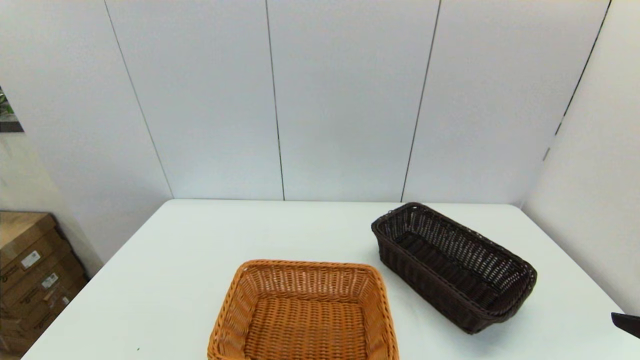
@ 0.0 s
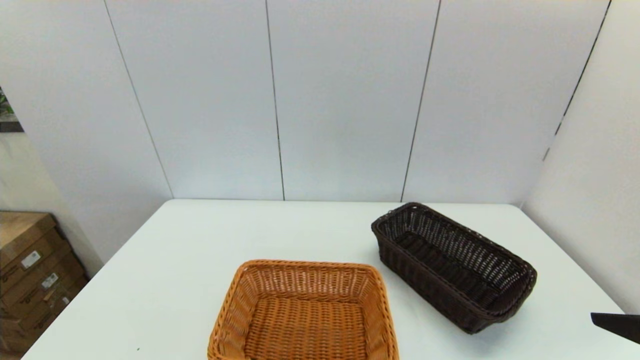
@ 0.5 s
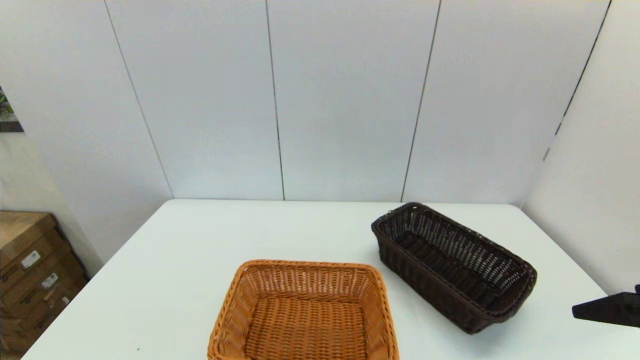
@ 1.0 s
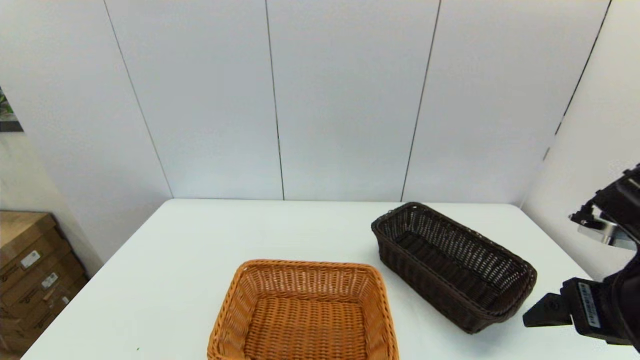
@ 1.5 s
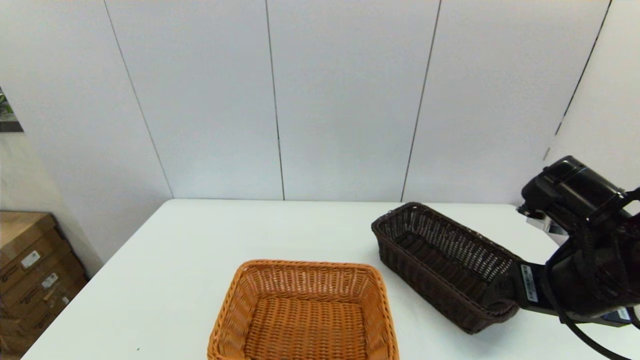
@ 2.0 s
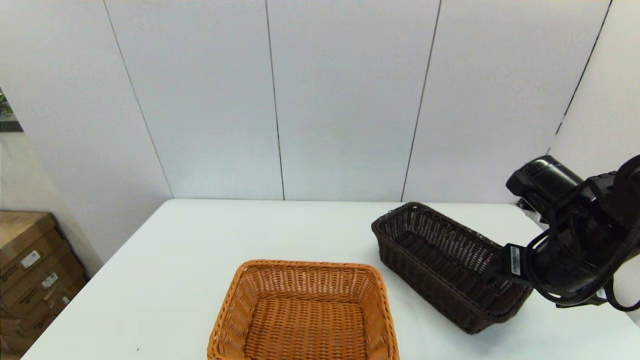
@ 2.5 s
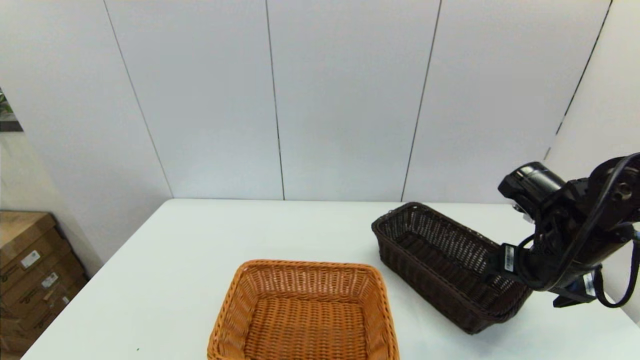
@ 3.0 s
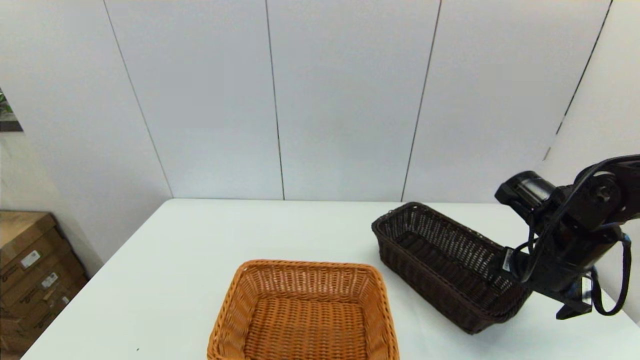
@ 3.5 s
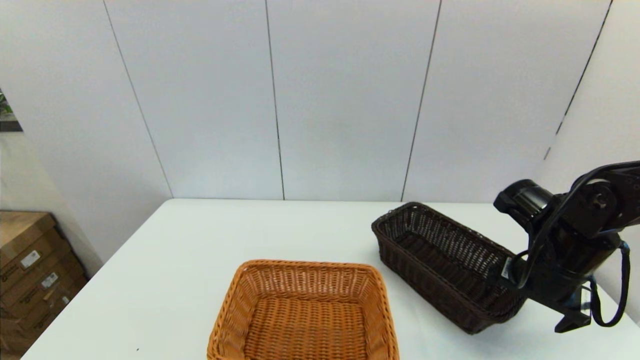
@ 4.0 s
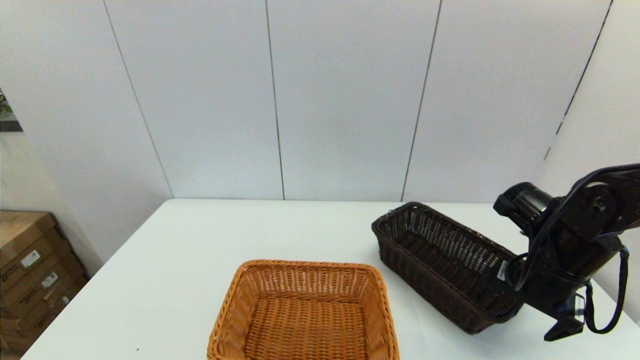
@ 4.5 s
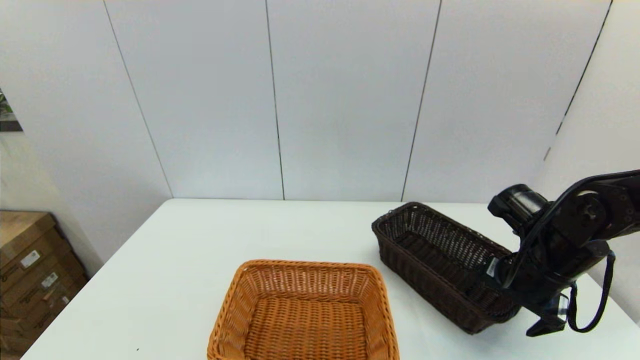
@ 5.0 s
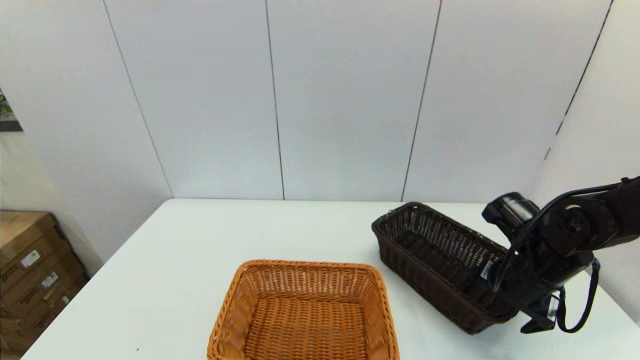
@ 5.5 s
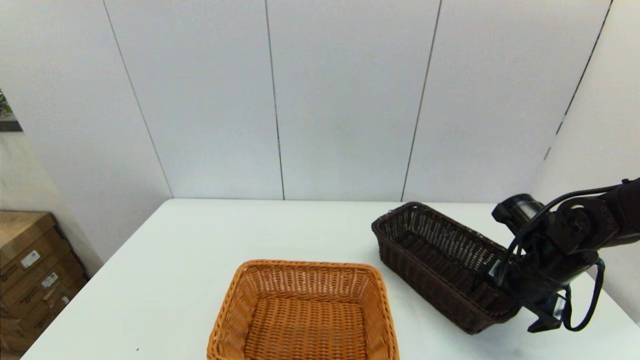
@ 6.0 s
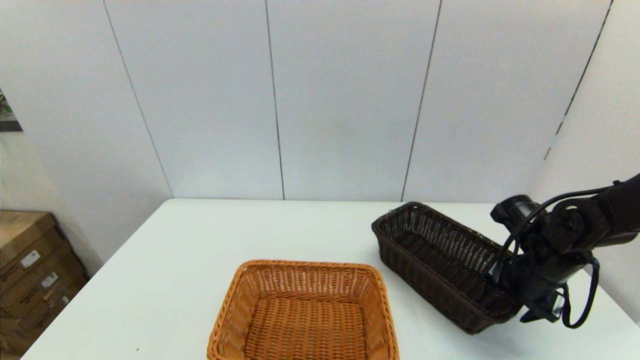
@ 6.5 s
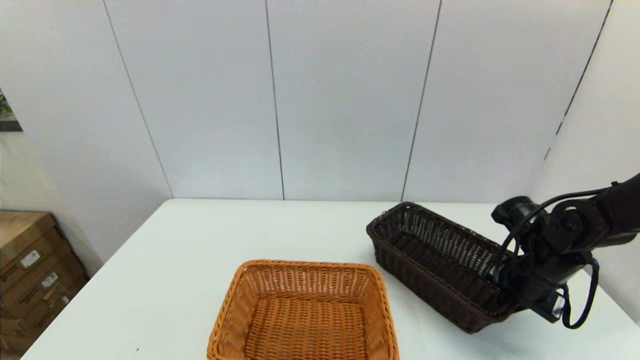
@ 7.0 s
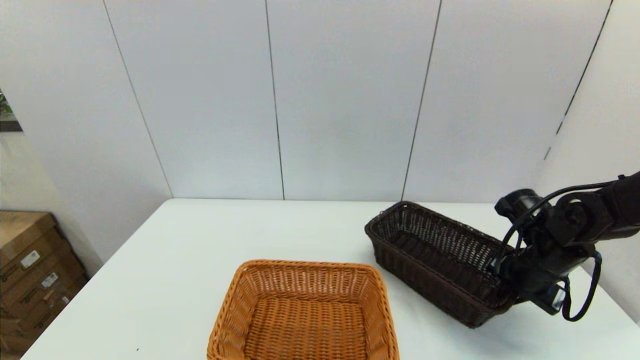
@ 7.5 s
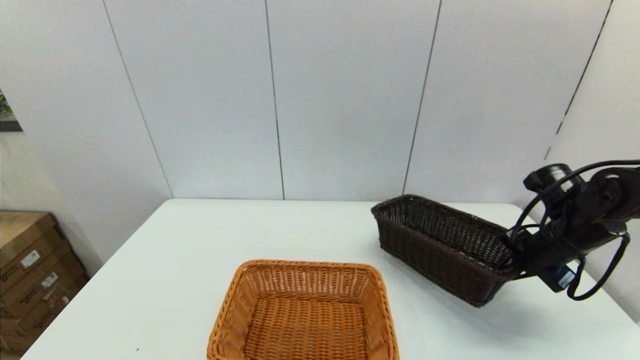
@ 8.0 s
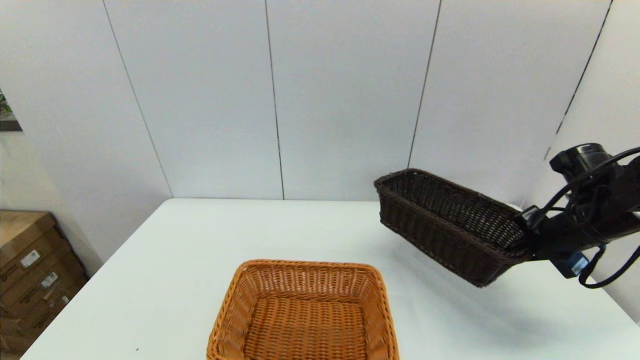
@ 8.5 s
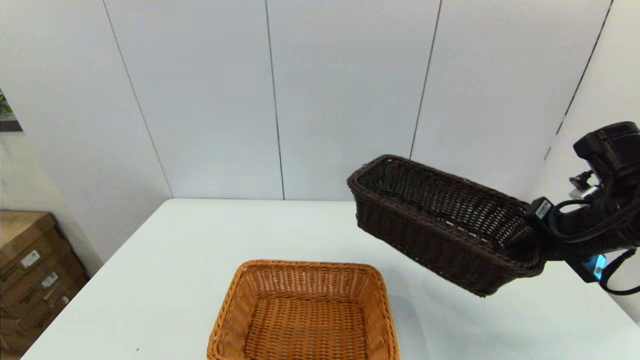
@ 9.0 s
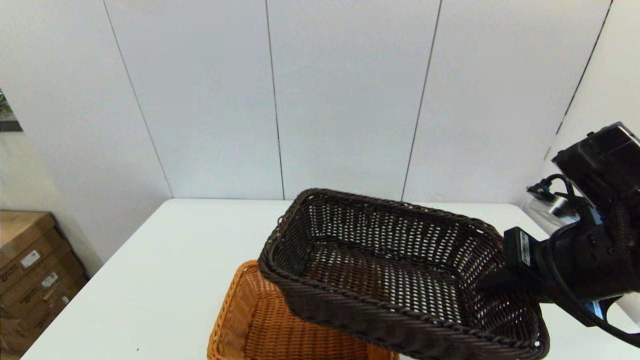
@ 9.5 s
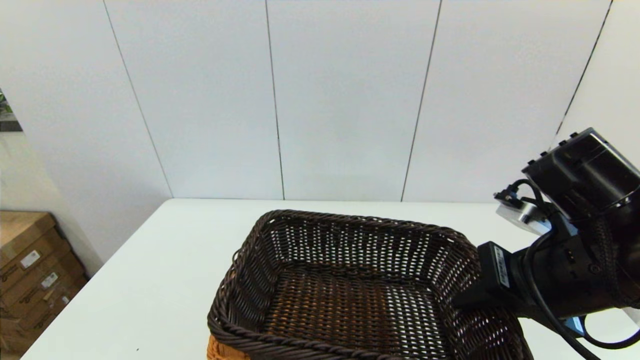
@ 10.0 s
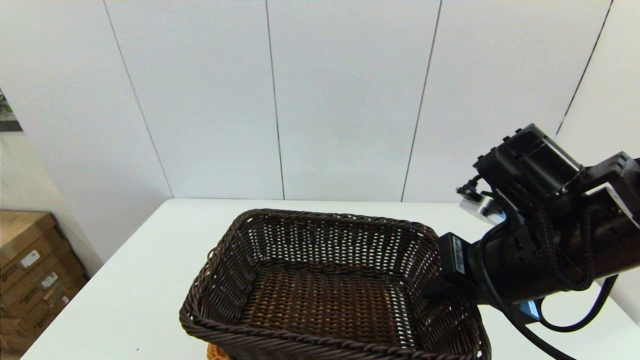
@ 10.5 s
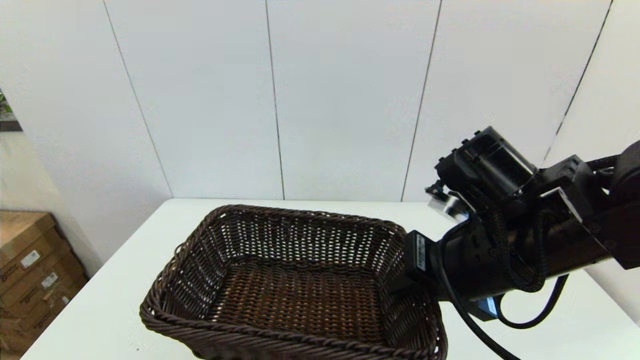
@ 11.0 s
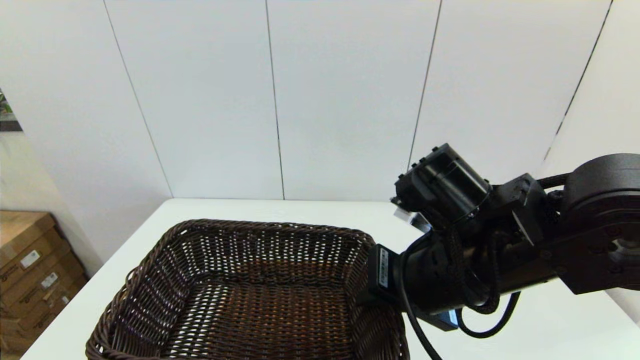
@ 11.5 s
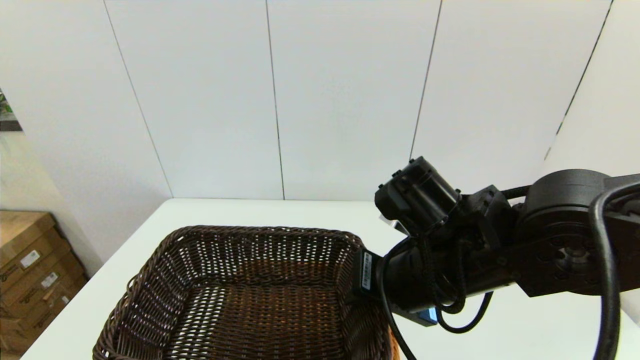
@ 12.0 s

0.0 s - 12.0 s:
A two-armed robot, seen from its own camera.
Task of the whole recording: stack a basket on top of another basket.
Step, 0.0 s - 7.5 s: Grasp the dark basket with the right gripper.
0.0 s - 2.0 s: The right gripper shifts roughly 15 cm forward and to the left.
2.0 s - 4.0 s: The right gripper is displaced forward and downward by some 10 cm.
4.0 s - 6.0 s: The right gripper changes place by some 5 cm.
6.0 s - 8.0 s: The right gripper moves approximately 5 cm, and closes.
8.0 s - 10.0 s: The right gripper goes approximately 20 cm to the left, backward and upward.
10.0 s - 12.0 s: The right gripper moves to the left, some 10 cm.

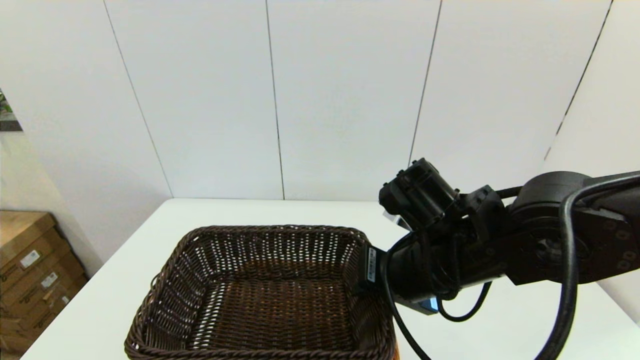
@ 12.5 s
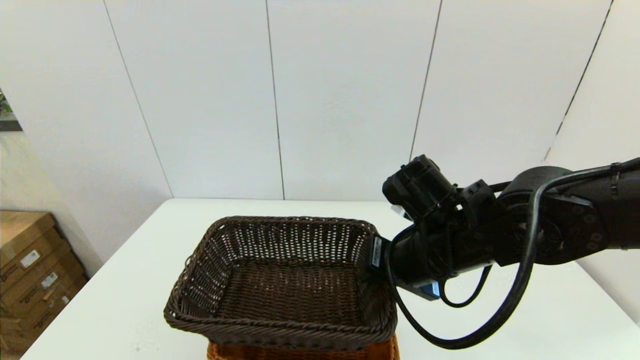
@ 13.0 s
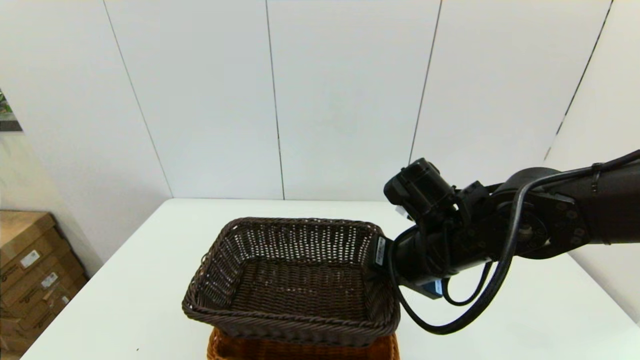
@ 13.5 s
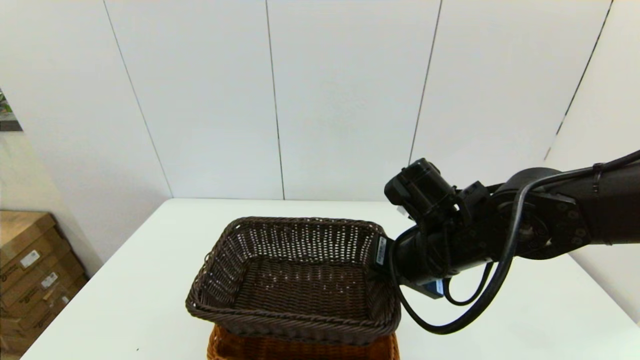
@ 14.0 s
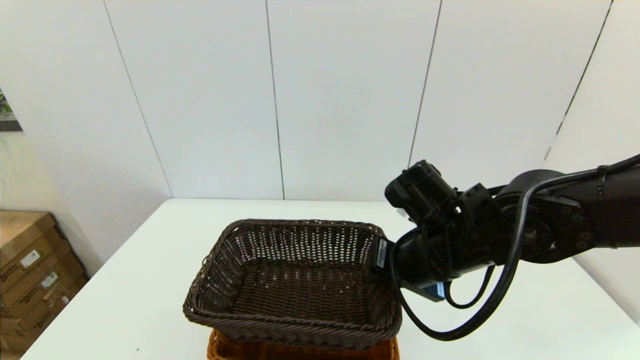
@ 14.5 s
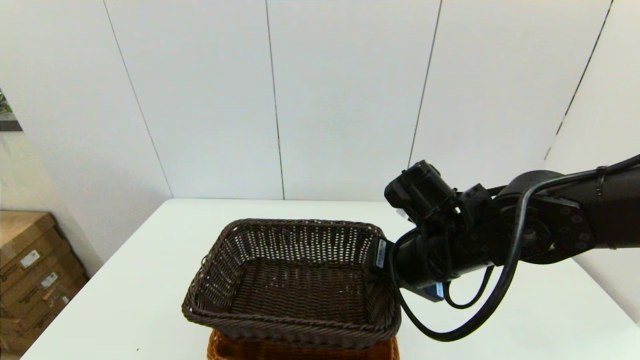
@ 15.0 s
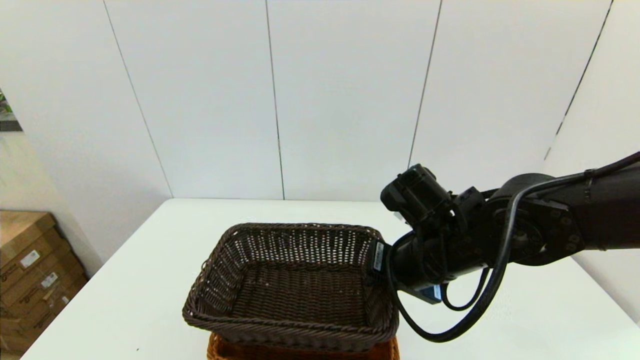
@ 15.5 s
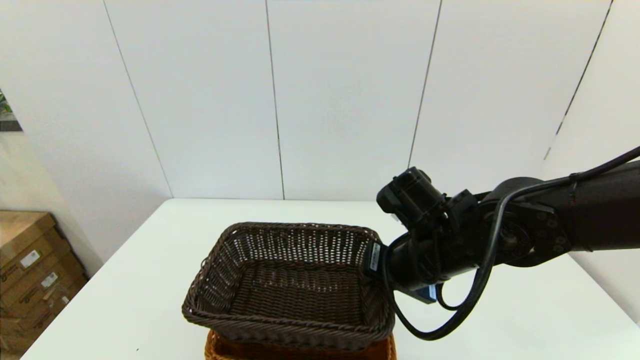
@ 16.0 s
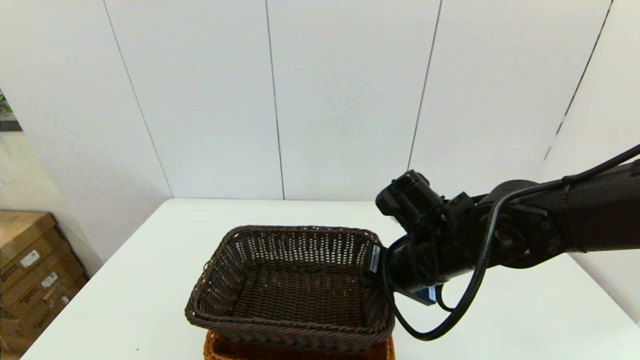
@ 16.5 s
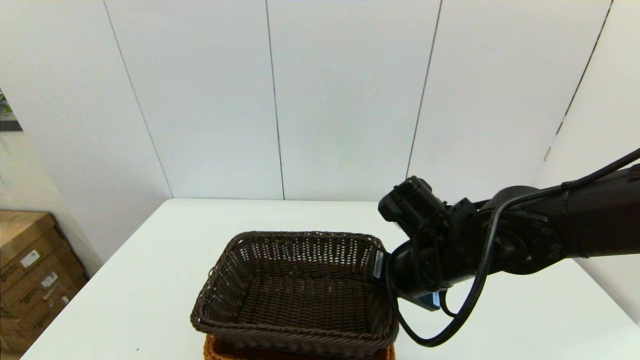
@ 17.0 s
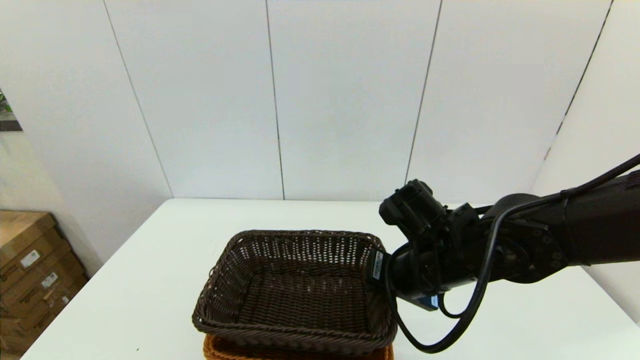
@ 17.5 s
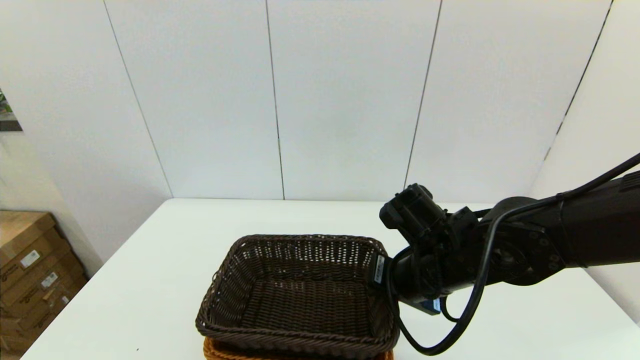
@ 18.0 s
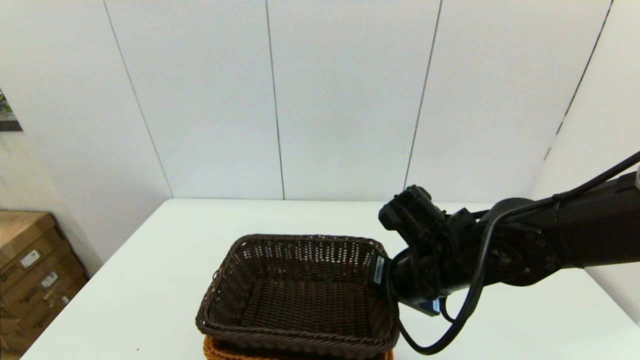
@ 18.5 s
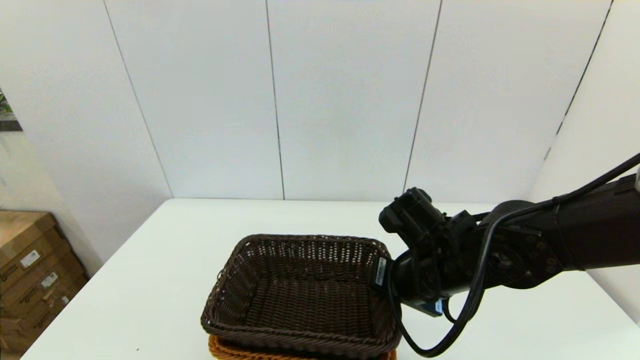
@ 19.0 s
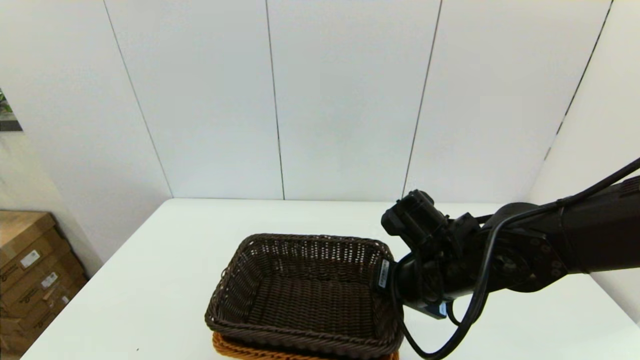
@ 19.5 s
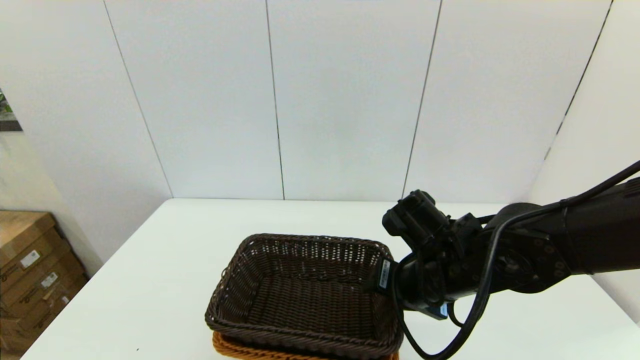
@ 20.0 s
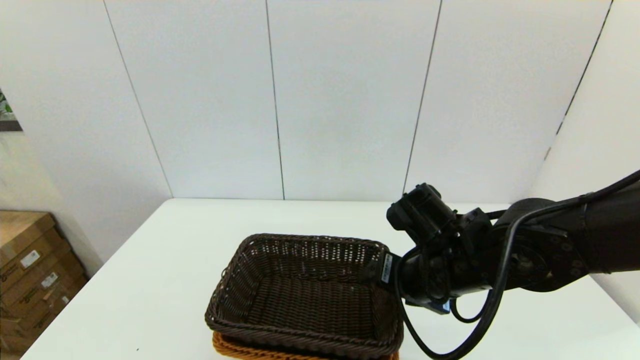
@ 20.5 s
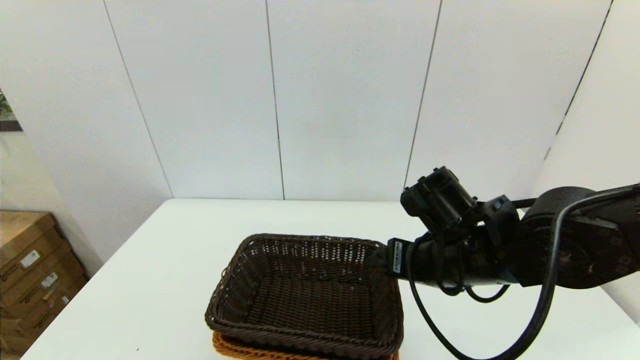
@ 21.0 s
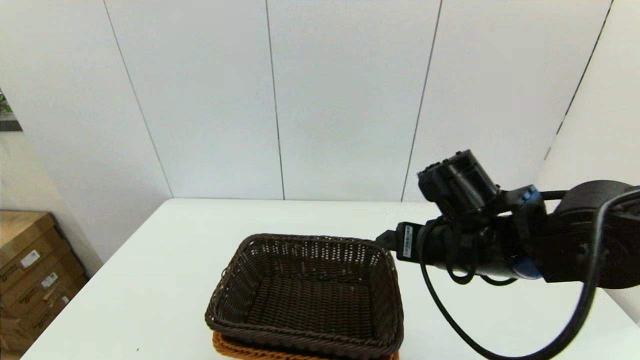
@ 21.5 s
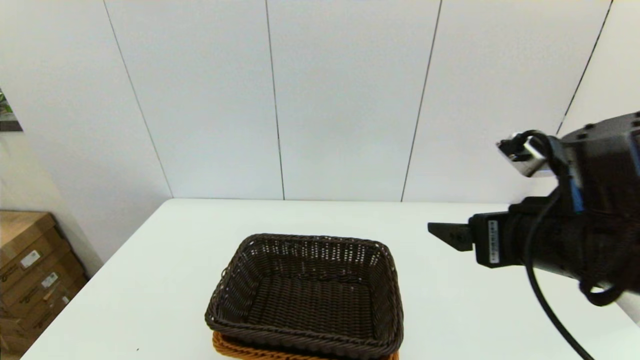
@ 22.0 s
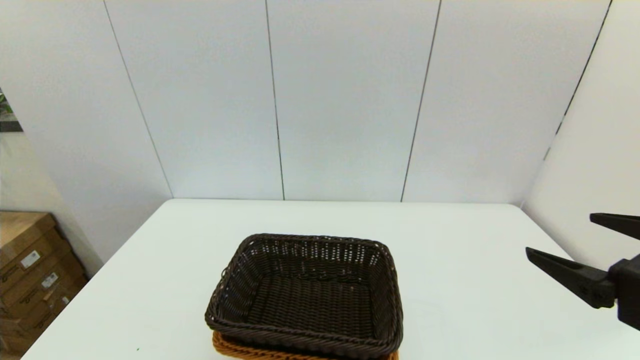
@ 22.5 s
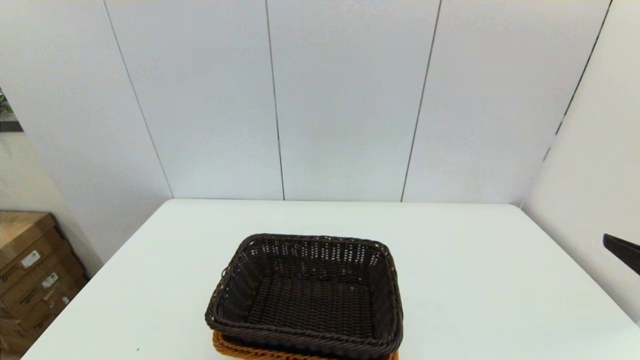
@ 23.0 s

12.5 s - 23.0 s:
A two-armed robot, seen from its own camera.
Task of the whole recording: stack a basket on top of another basket.
Step, 12.5 s - 21.0 s: Place the dark basket into the light color basket with the right gripper.
12.5 s - 16.5 s: The grippers move only a little.
16.5 s - 19.0 s: There are only small adjustments of the grippers.
19.0 s - 21.0 s: The right gripper opens.
21.0 s - 23.0 s: The right gripper travels to the right, backward and upward by roughly 25 cm.
